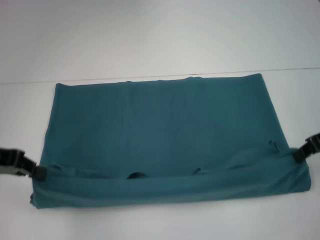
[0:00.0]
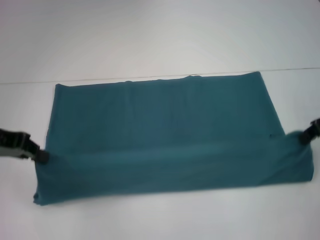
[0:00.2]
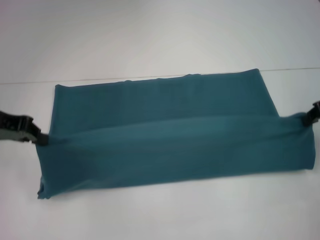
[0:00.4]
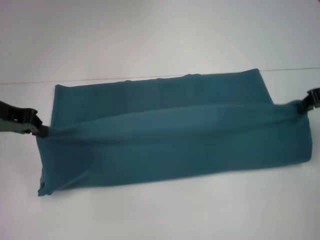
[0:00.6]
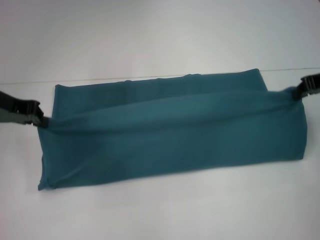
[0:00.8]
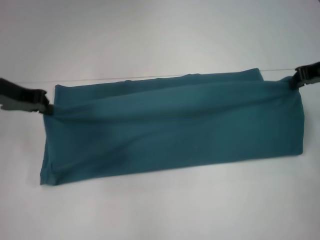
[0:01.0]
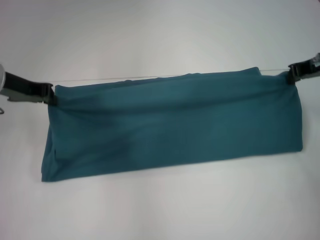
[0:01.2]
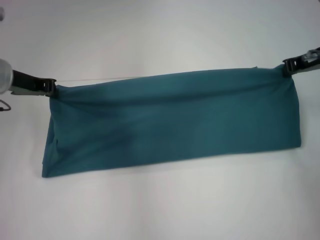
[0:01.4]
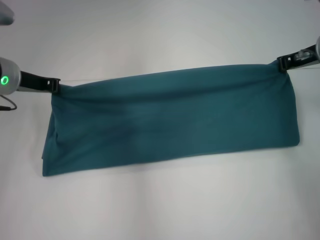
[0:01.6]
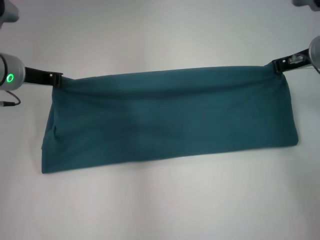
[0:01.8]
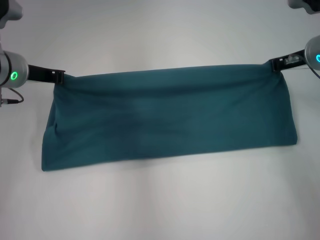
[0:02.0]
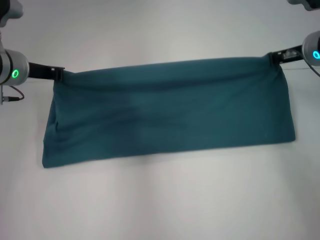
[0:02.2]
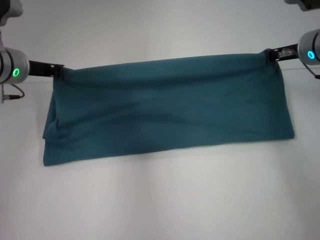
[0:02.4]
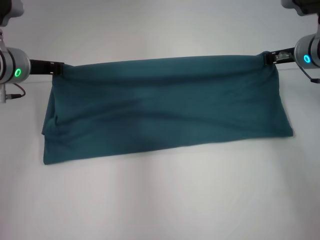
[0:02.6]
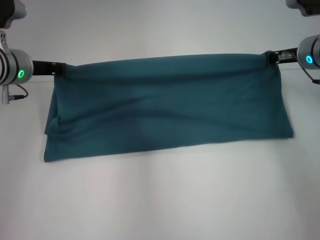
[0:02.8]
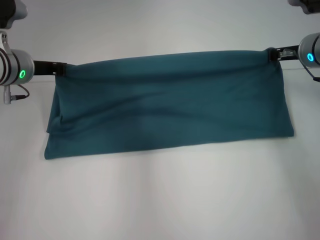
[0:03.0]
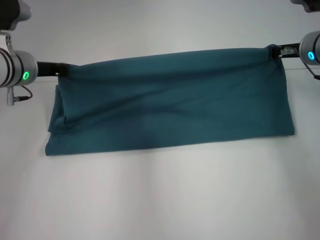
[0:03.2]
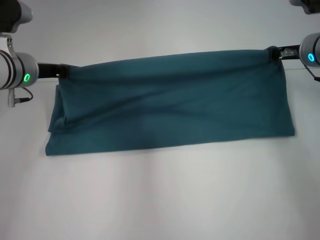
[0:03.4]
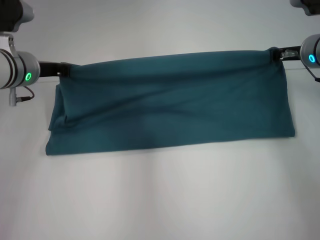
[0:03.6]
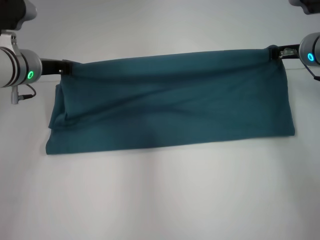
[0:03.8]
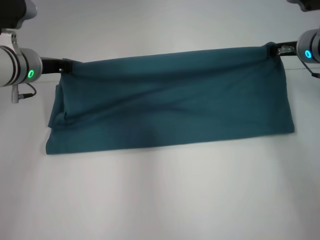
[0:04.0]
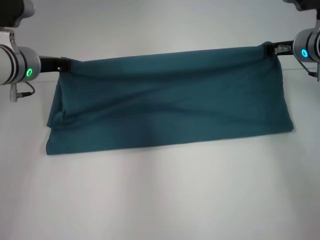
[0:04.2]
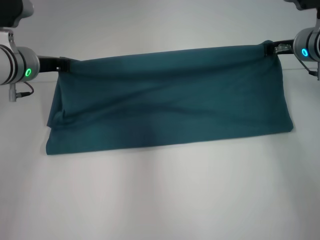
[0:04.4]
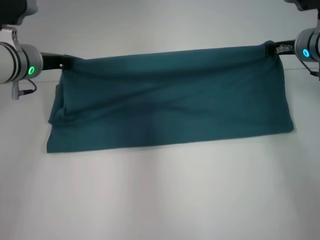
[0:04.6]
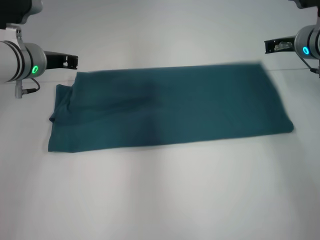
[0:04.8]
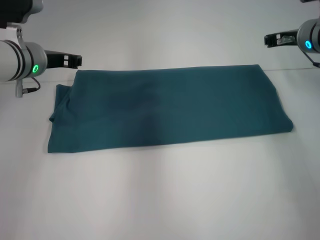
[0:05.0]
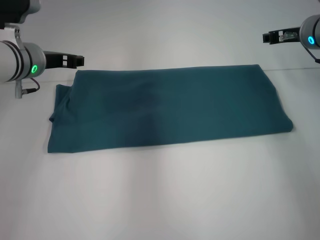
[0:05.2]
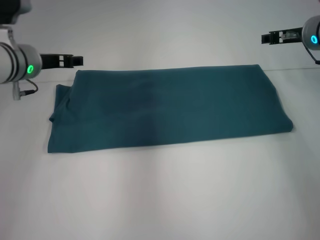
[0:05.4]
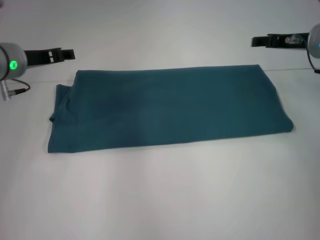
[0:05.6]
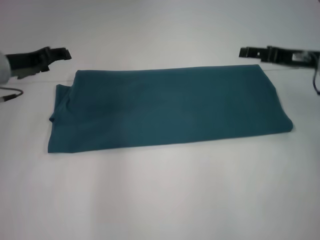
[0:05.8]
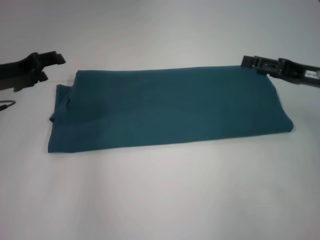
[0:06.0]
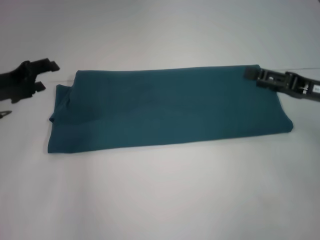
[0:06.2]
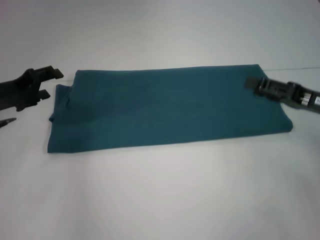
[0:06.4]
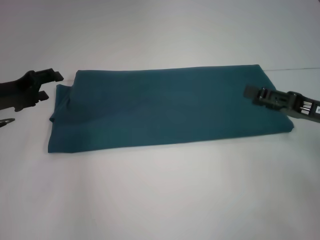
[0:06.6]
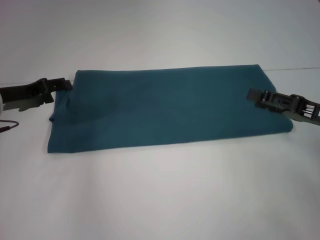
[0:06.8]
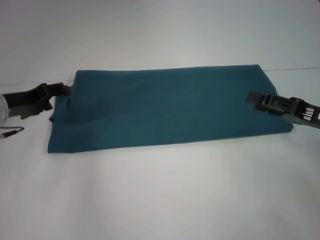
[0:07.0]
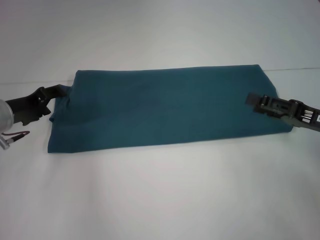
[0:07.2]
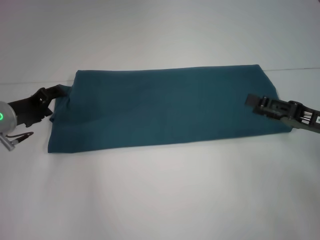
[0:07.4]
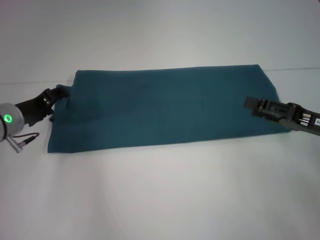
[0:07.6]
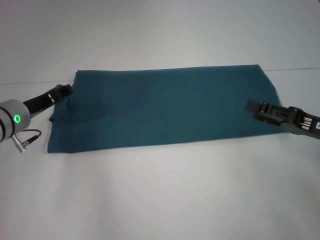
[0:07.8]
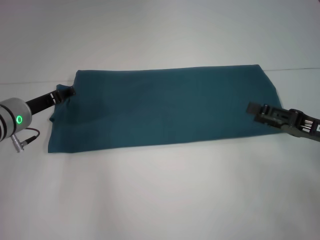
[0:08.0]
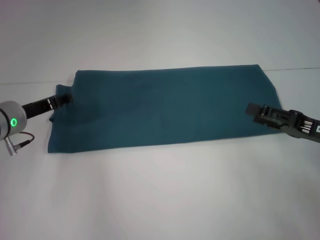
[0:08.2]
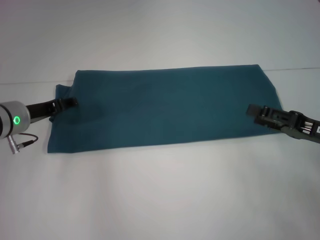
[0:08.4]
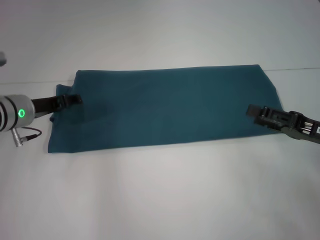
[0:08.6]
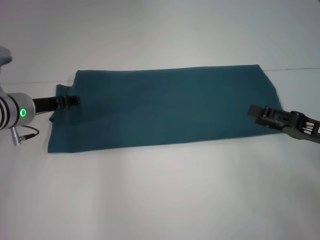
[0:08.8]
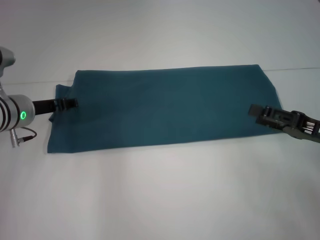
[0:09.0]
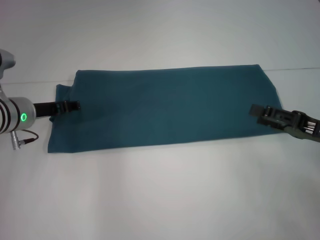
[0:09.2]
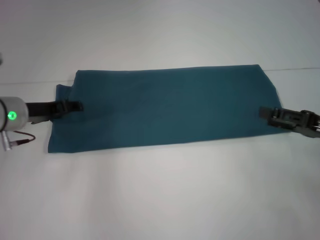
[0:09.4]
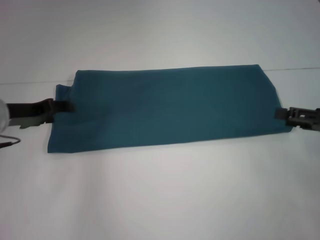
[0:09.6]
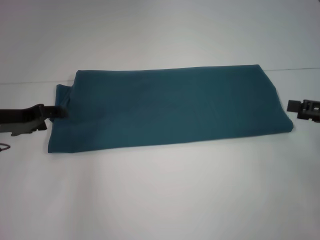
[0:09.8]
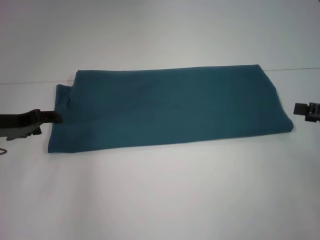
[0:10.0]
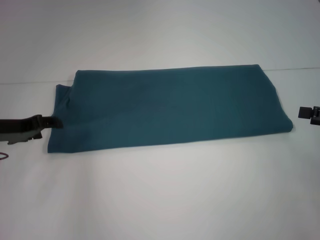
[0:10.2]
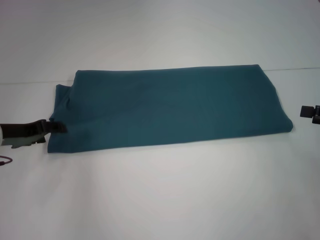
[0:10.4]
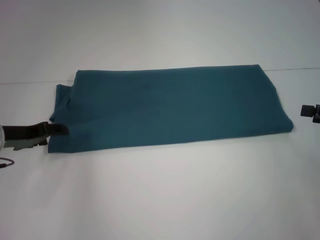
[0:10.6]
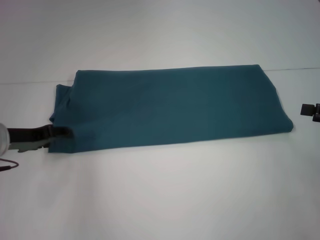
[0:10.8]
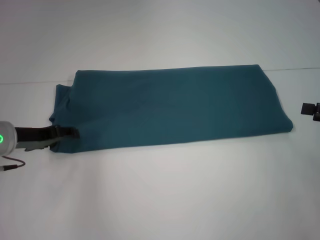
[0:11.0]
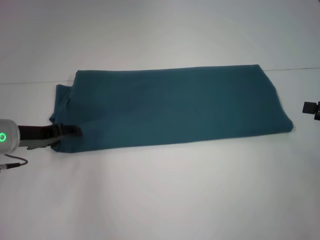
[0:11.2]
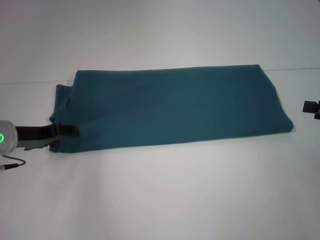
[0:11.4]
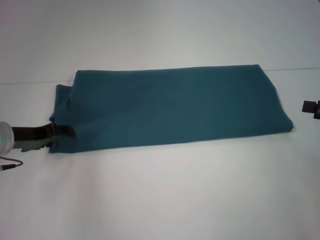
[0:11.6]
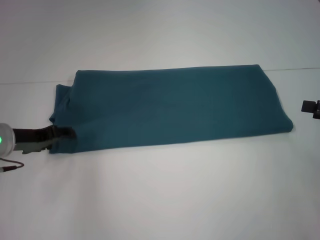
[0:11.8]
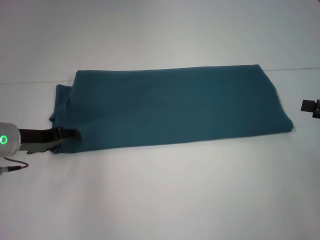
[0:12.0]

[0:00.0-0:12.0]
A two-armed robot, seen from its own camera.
Step, 0:00.0 to 0:05.0: Fold the clothes to the left.
Step, 0:00.0 to 0:05.0: Fold the clothes to the right.
0:00.0 to 0:01.6: The right gripper moves forward, about 10 cm. The left gripper shifts approximately 10 cm forward and to the right.
0:01.6 to 0:03.0: There are only small adjustments of the grippers.
0:03.0 to 0:04.4: Both grippers stay put.
0:04.4 to 0:06.0: The right gripper shifts roughly 10 cm backward, and opens up. Meanwhile the left gripper goes approximately 10 cm to the left and backward, and opens.
0:06.0 to 0:07.6: The left gripper moves downward, about 10 cm, while the right gripper is displaced backward by approximately 5 cm.
0:09.0 to 0:10.4: The right gripper heads to the right, covering roughly 5 cm. The left gripper ends up approximately 5 cm from where it was.
0:10.4 to 0:12.0: The grippers stay close to where they were, moving slightly.

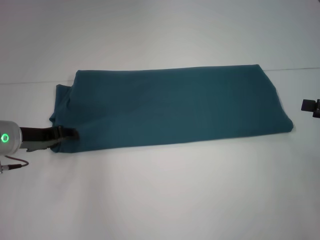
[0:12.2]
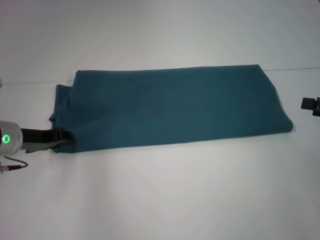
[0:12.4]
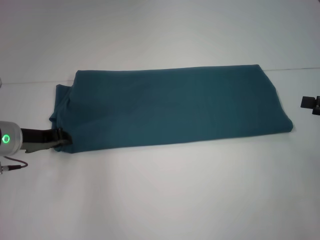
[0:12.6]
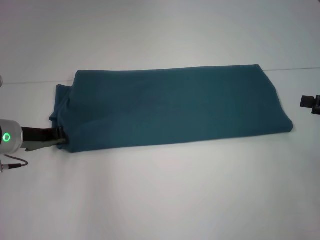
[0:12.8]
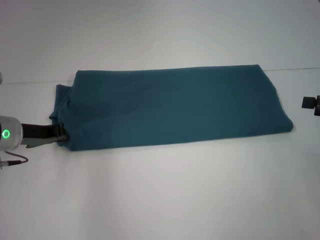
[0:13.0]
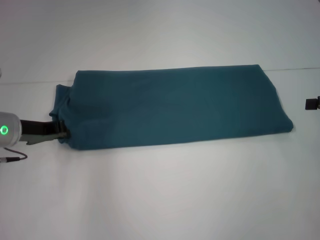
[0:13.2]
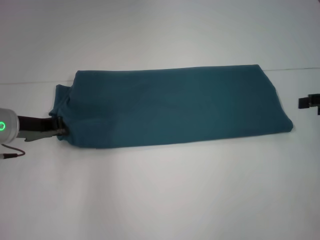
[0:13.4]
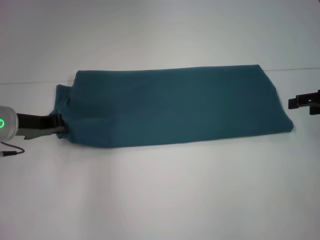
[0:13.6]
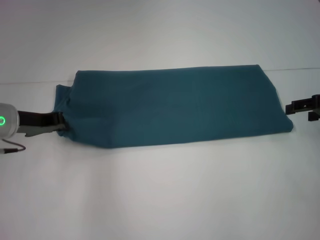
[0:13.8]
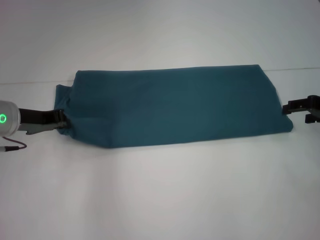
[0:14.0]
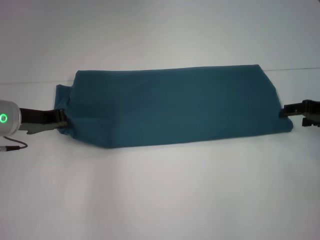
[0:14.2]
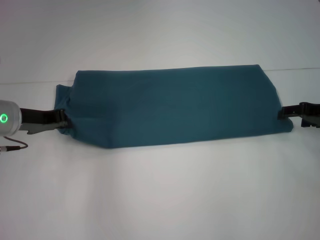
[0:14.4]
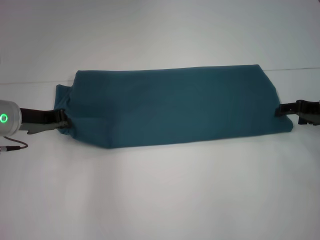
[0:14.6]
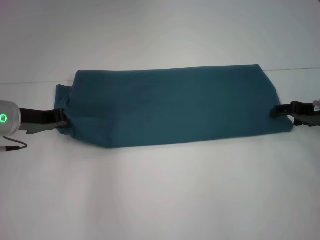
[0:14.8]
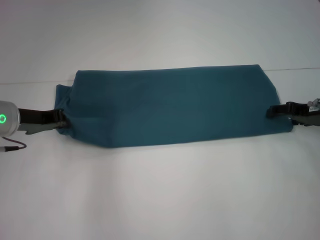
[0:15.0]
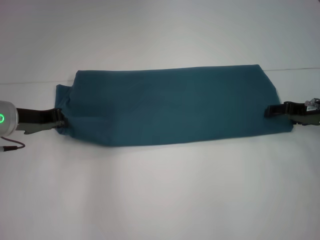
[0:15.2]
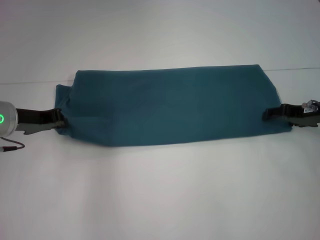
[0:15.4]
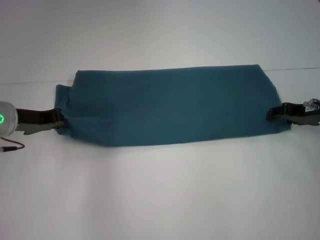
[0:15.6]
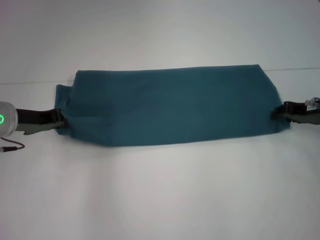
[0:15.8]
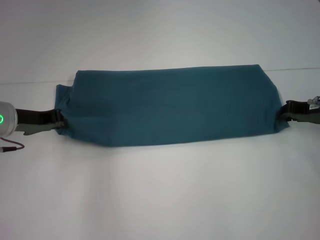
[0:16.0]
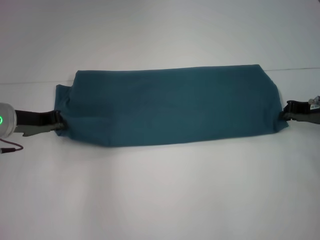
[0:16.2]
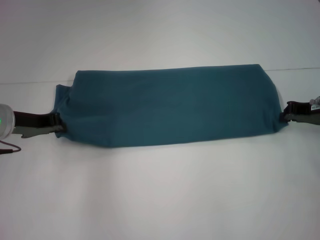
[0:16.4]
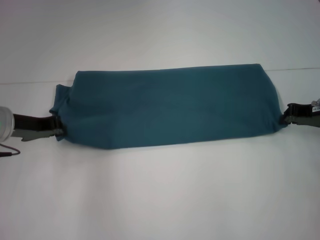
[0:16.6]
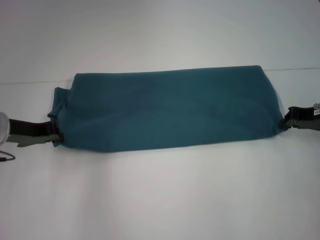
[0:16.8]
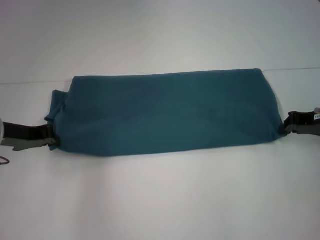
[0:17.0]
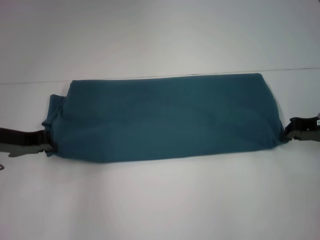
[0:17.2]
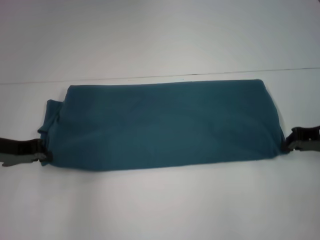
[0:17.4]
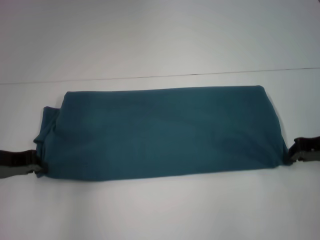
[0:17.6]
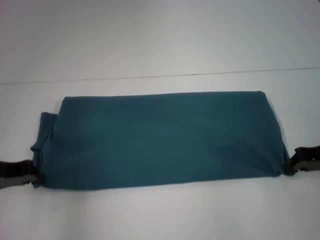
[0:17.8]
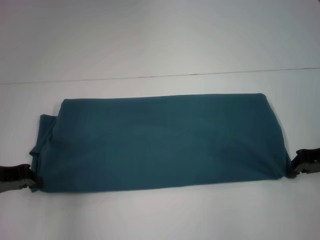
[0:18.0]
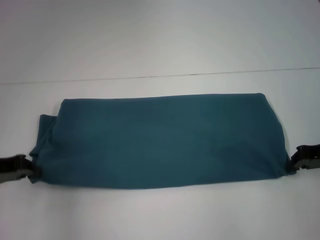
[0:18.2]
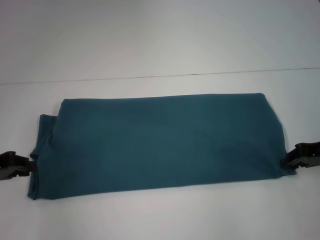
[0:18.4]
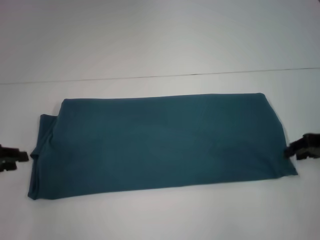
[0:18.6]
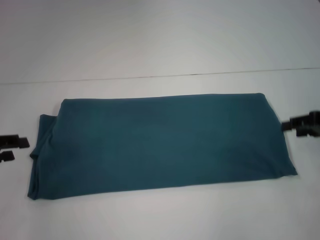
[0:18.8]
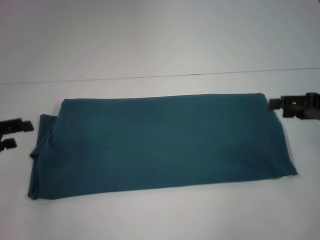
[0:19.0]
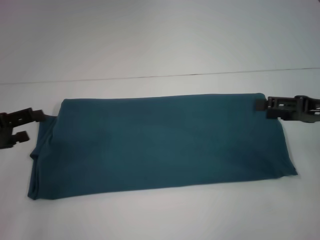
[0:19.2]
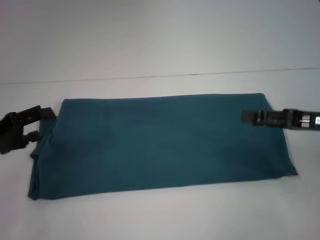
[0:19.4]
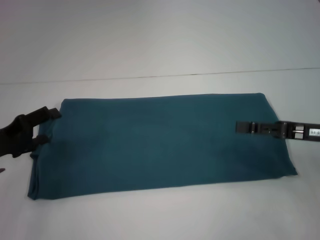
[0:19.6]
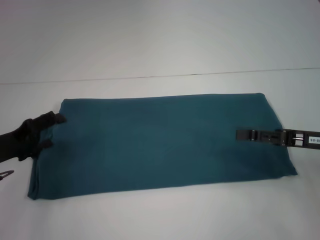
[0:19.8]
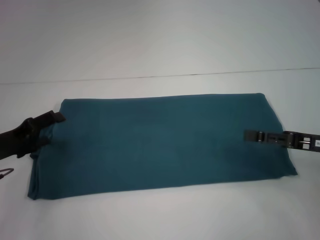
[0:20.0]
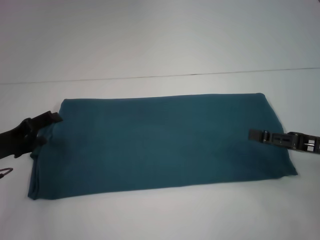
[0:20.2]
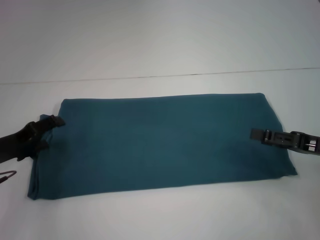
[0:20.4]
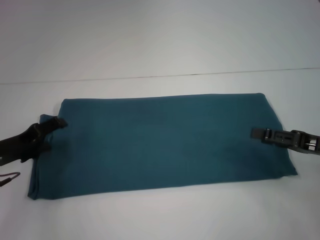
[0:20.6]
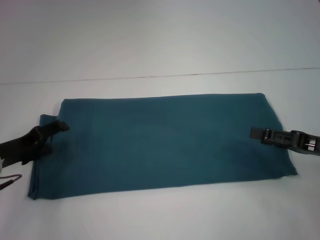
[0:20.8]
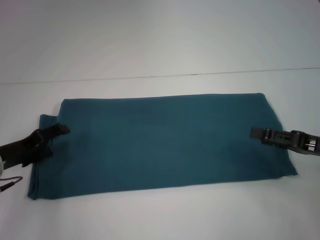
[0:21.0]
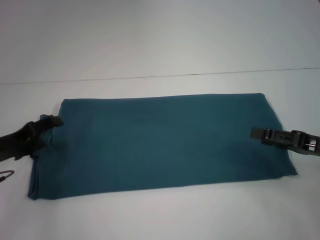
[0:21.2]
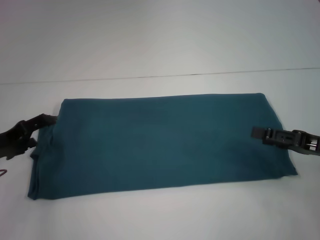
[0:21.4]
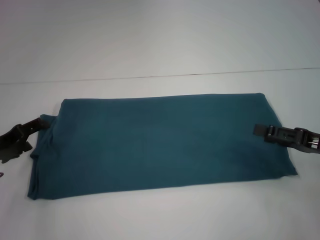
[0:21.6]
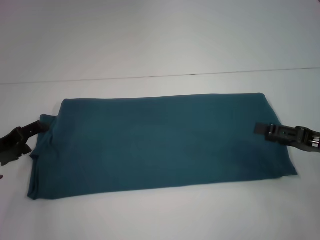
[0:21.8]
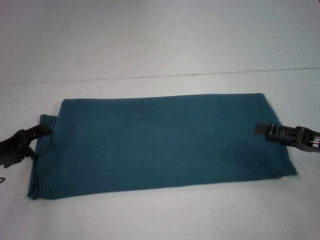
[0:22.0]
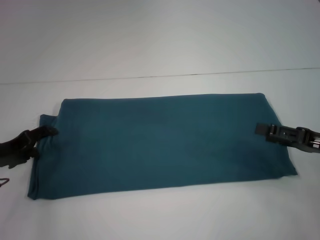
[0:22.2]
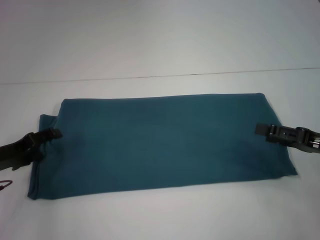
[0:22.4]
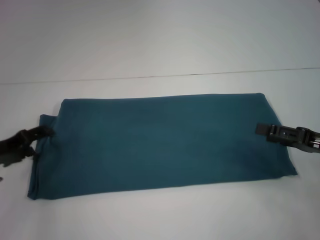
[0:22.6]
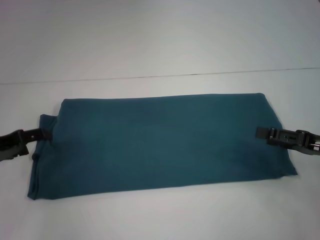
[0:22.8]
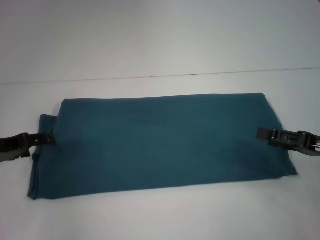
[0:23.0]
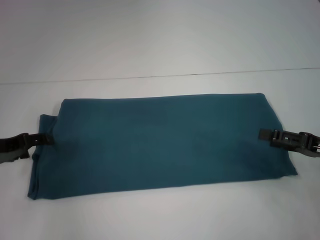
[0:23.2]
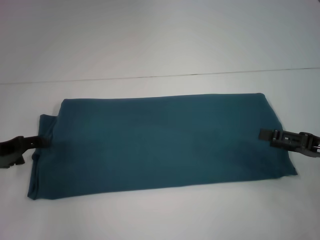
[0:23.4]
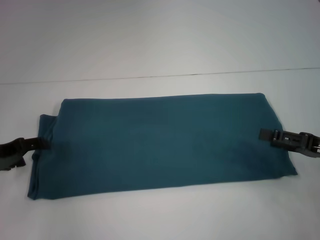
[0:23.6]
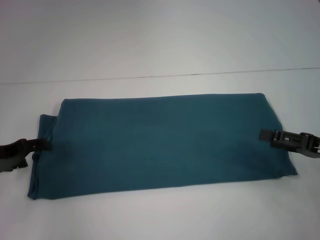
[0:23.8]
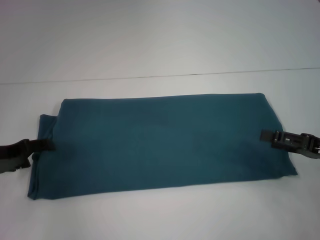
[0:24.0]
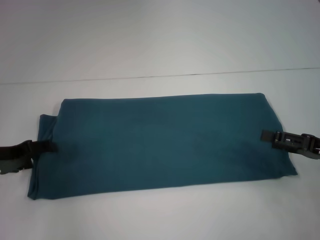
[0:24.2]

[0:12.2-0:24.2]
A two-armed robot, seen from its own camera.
Step, 0:12.2 to 0:18.4: Pull the clothes with your left hand.
Step, 0:12.2 to 0:18.4: Pull the clothes with your right hand.
0:12.2 to 0:13.8: The left gripper closes.
0:13.8 to 0:15.2: The right gripper heads downward, covering roughly 5 cm.
0:15.2 to 0:16.6: The right gripper closes.
0:16.6 to 0:18.2: The right gripper is displaced backward by approximately 5 cm. Meanwhile the left gripper shifts approximately 10 cm backward and to the left.
0:18.2 to 0:19.8: The left gripper opens up, while the right gripper opens up.
0:19.8 to 0:22.6: The grippers make only small movements.
0:22.6 to 0:24.2: The grippers move only a little.
